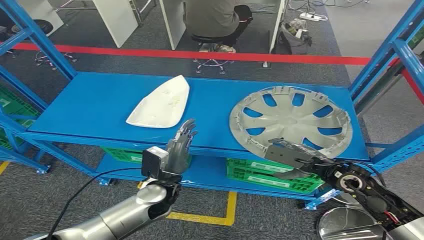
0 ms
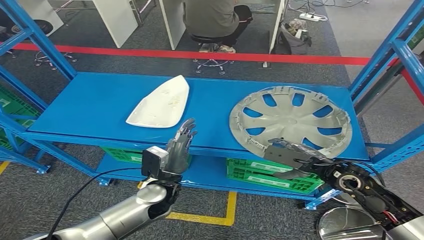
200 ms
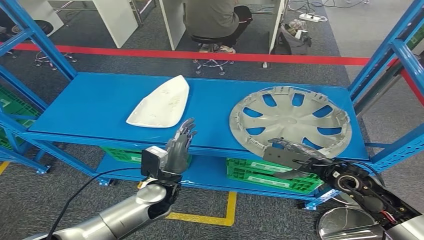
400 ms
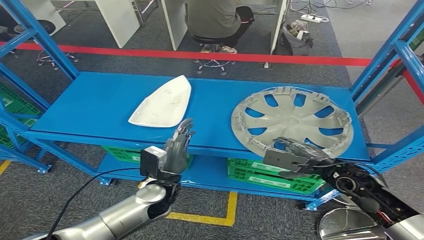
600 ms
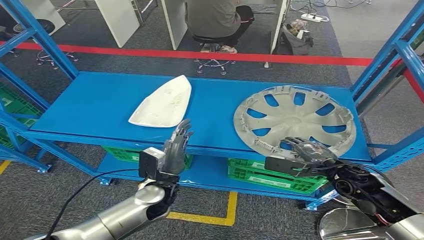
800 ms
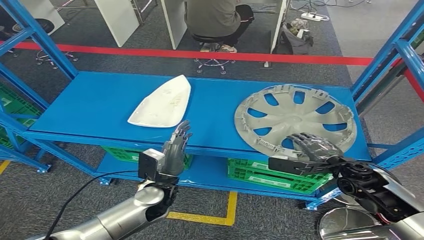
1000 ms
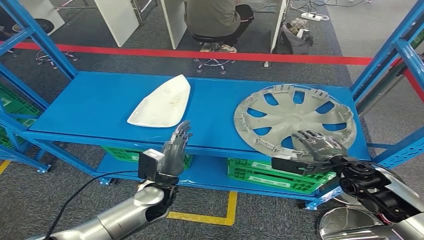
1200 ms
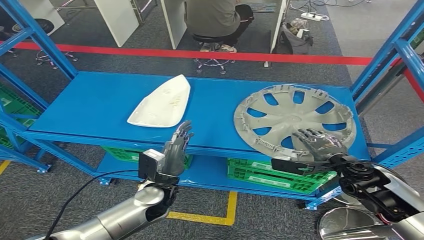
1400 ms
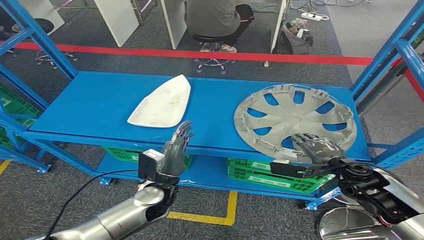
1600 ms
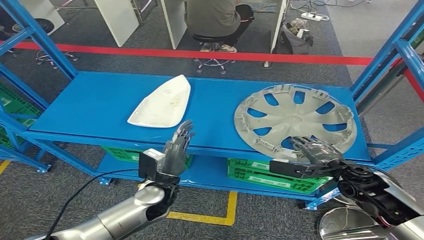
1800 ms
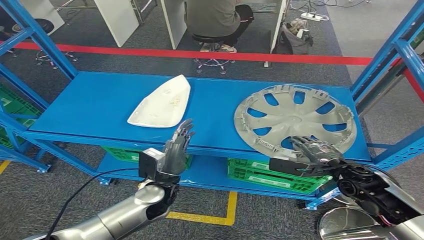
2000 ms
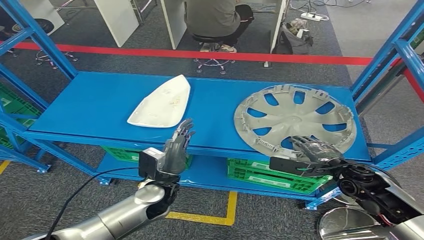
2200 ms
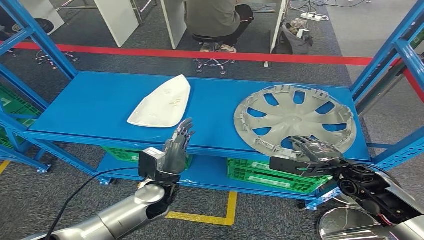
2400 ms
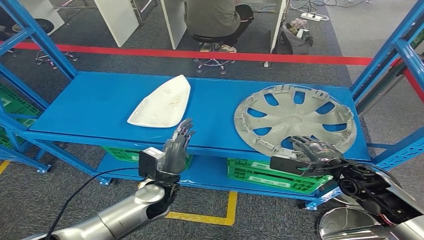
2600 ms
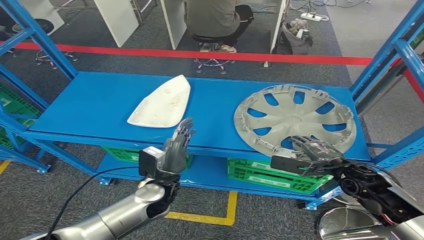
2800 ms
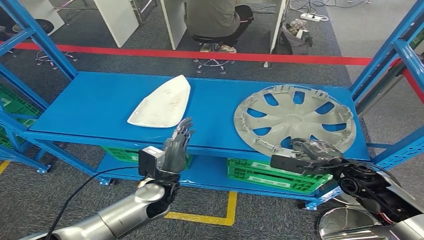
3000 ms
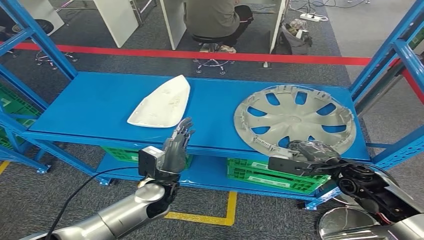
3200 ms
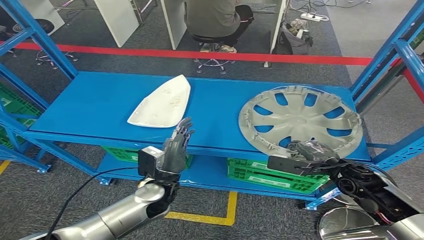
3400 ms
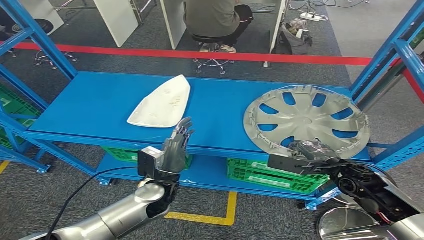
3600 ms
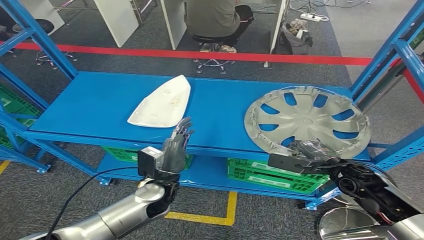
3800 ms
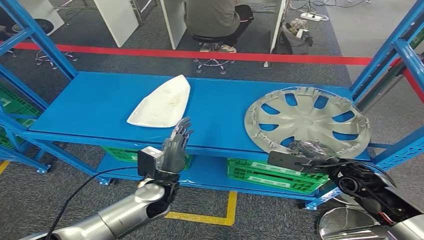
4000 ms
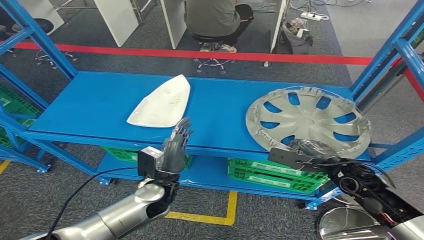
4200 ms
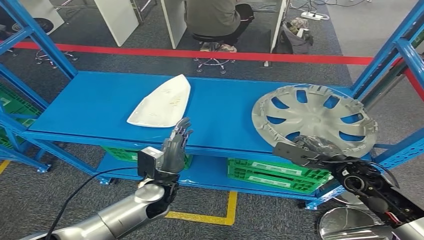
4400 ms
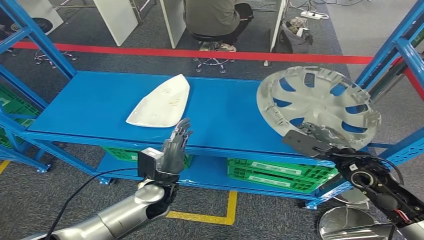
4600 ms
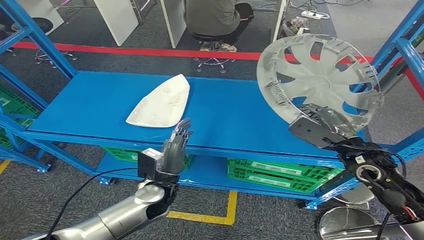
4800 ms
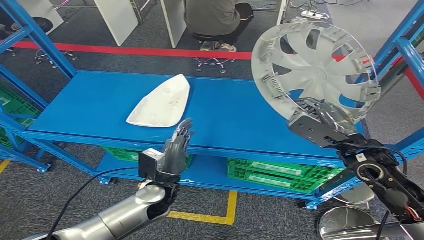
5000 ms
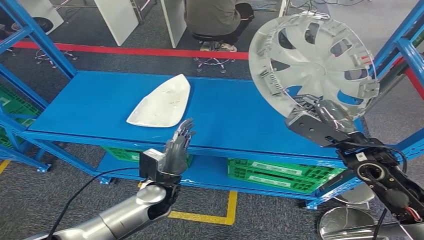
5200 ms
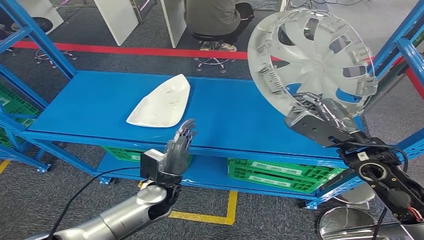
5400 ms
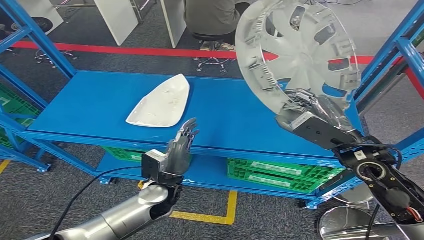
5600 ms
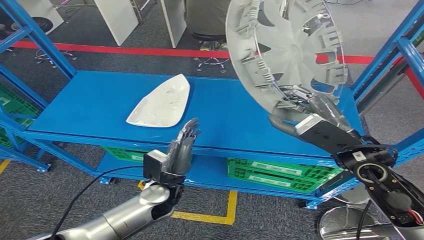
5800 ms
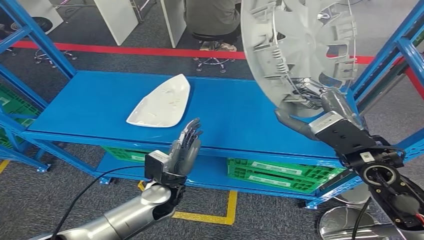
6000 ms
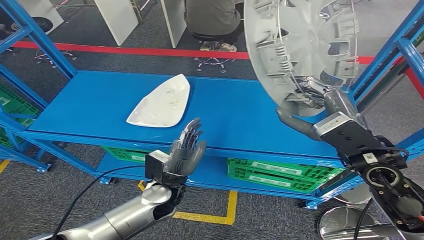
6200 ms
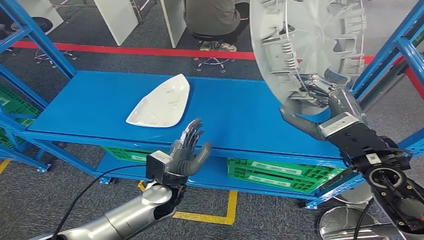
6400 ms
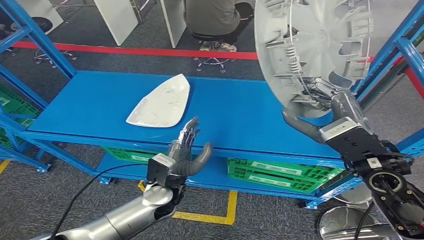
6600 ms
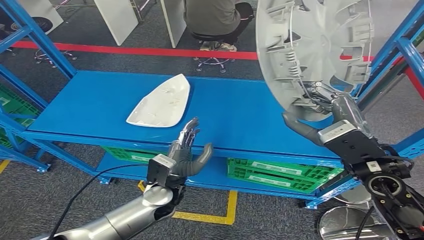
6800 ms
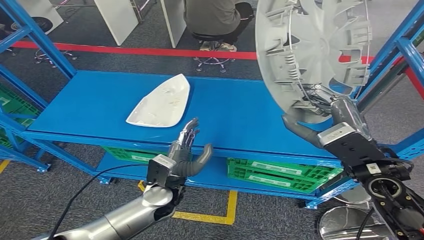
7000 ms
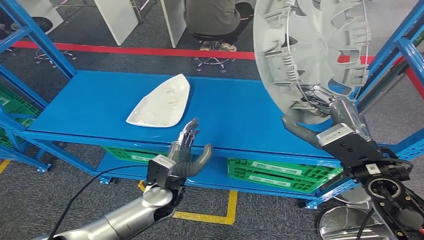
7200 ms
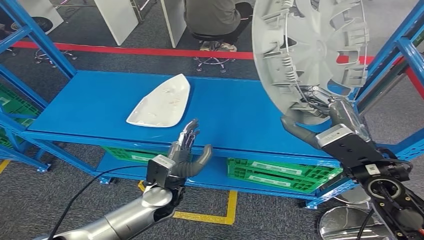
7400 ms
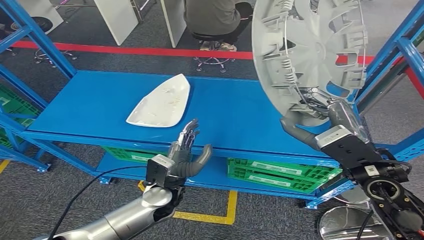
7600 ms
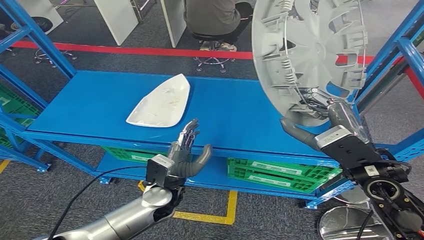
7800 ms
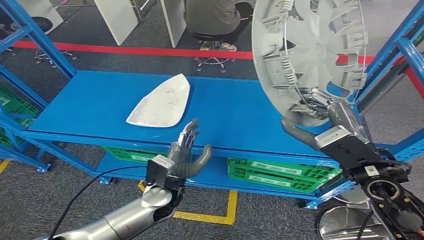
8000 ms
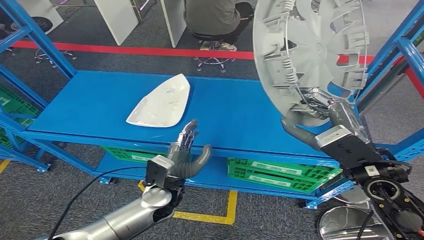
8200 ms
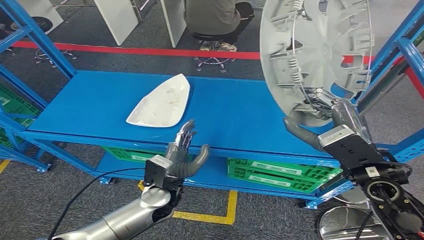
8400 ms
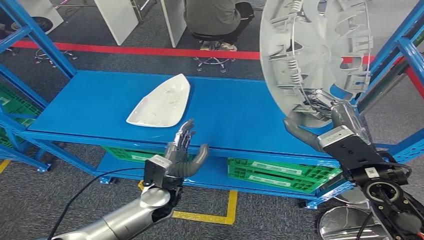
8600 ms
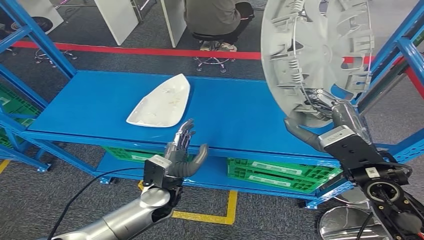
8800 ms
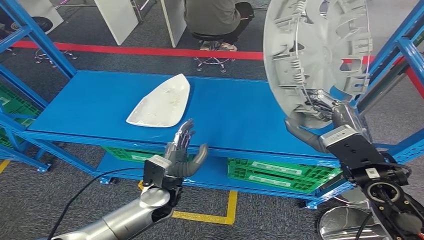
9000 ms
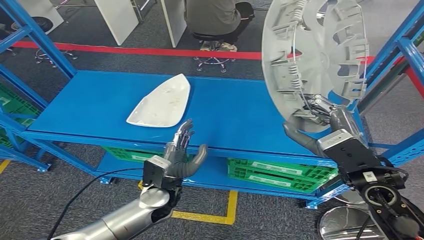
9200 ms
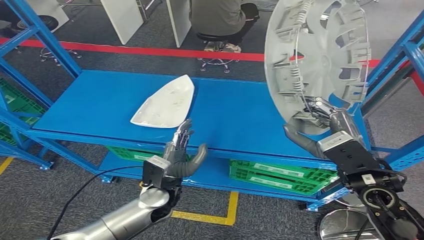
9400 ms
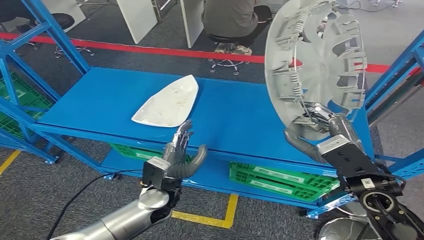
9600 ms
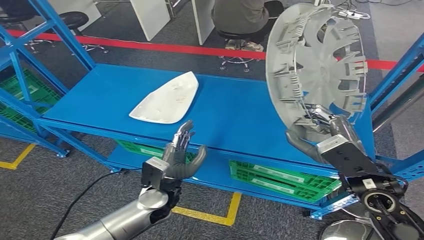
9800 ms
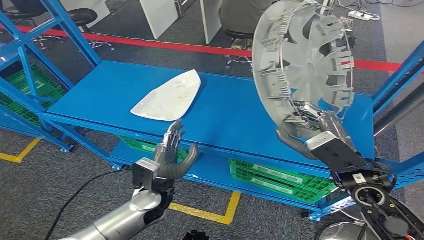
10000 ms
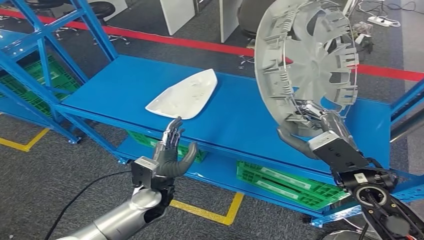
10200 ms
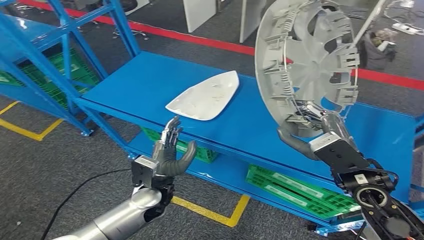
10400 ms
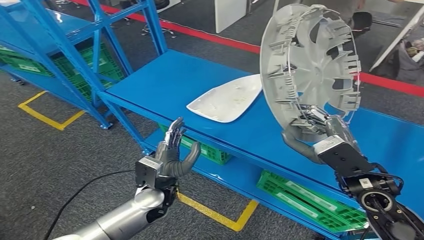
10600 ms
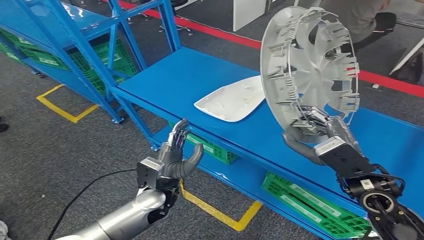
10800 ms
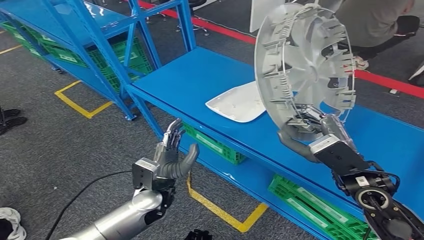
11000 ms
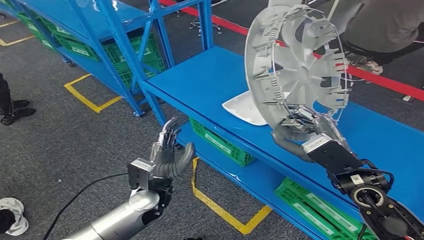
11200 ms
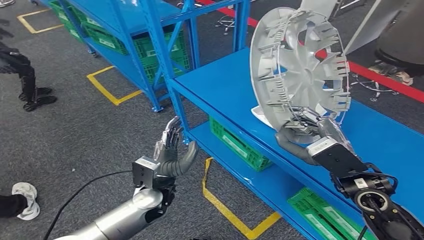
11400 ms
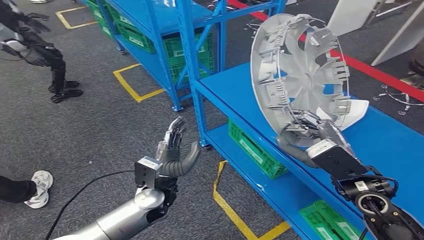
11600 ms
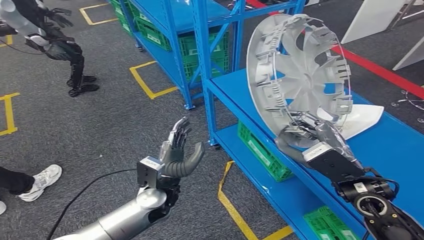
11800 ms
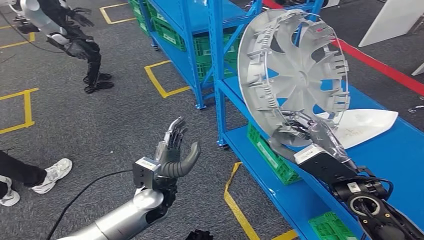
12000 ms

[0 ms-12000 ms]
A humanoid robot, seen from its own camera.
Step, 0 ms to 6600 ms: Pick up the small component from the shelf.
1600 ms to 3000 ms: The hands move only a little.
3000 ms to 4400 ms: The hands move only a little.
6000 ms to 7600 ms: There are only small adjustments of the hands.
7600 ms to 9000 ms: The two hands keep their place.

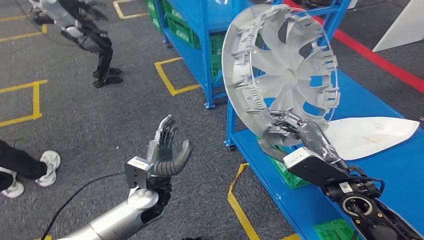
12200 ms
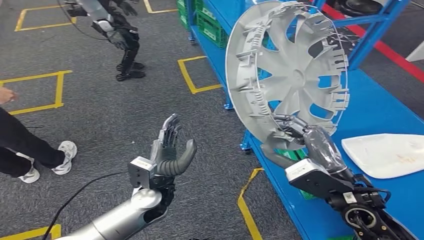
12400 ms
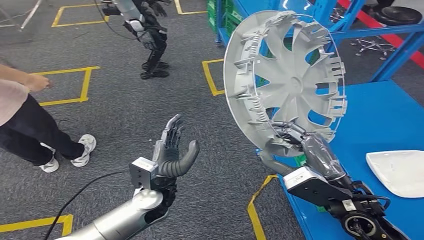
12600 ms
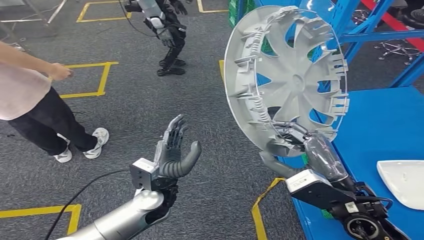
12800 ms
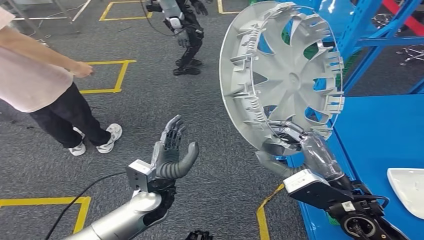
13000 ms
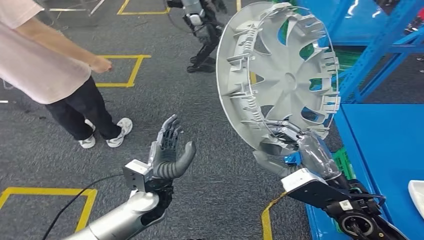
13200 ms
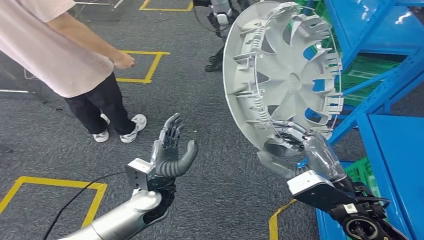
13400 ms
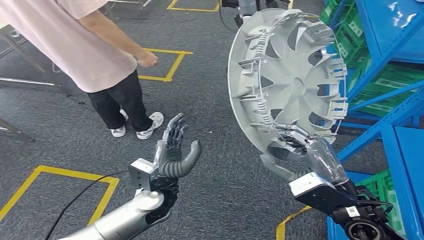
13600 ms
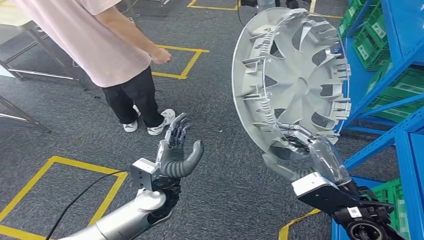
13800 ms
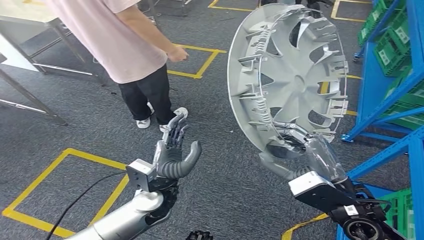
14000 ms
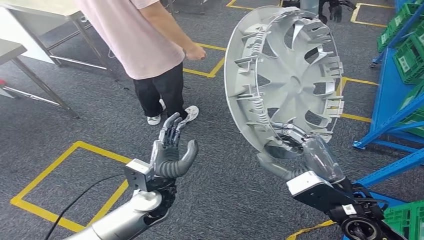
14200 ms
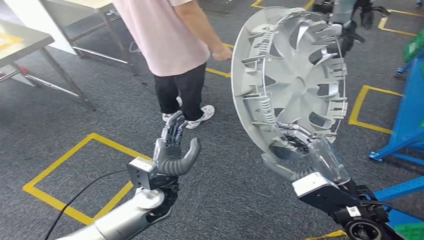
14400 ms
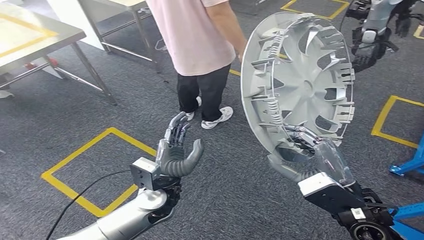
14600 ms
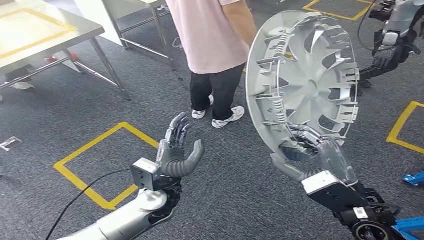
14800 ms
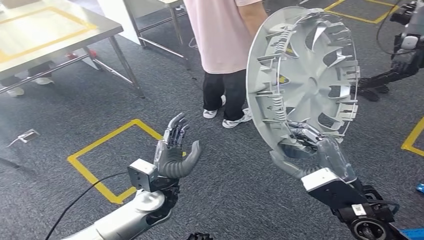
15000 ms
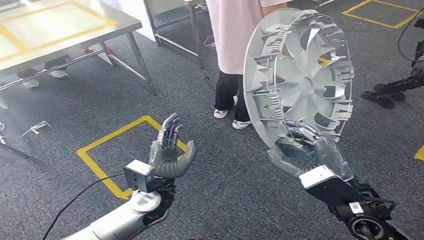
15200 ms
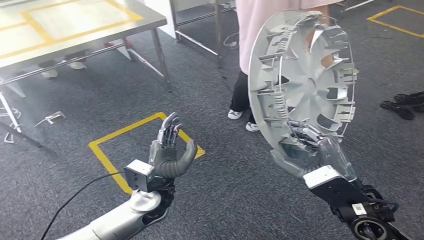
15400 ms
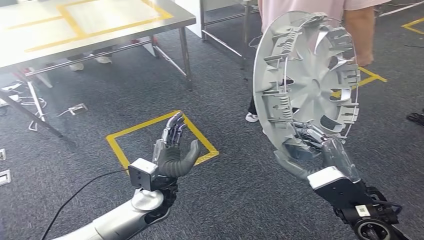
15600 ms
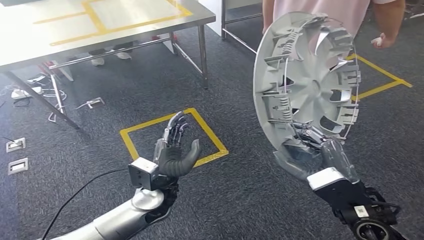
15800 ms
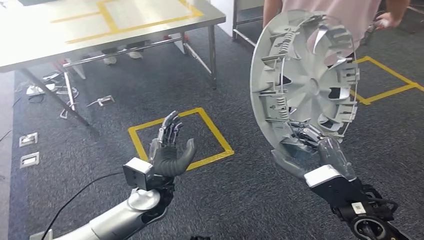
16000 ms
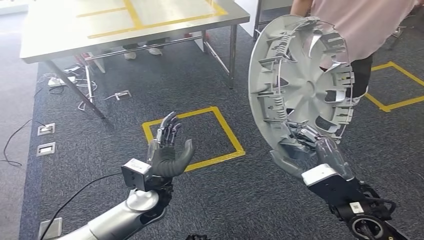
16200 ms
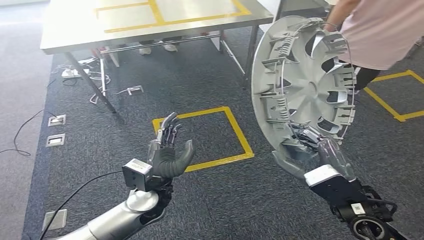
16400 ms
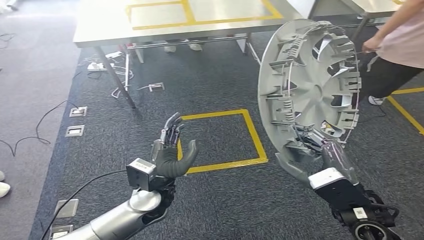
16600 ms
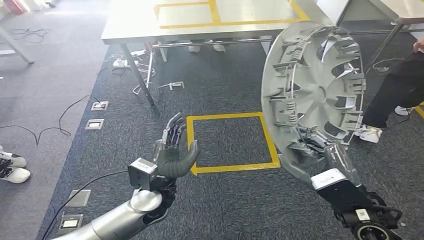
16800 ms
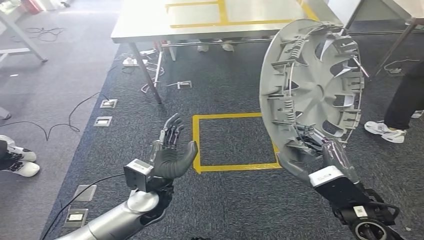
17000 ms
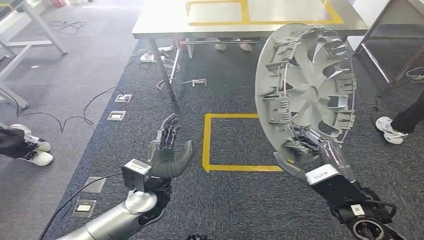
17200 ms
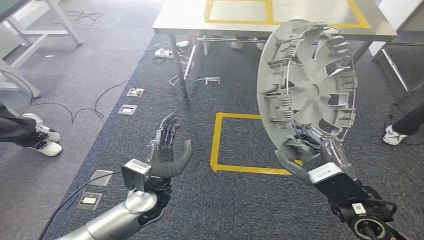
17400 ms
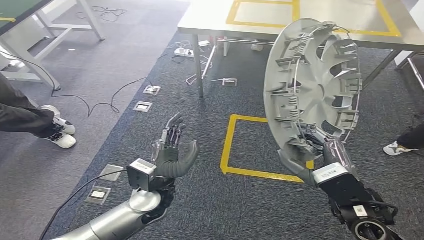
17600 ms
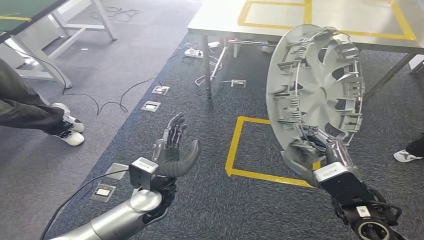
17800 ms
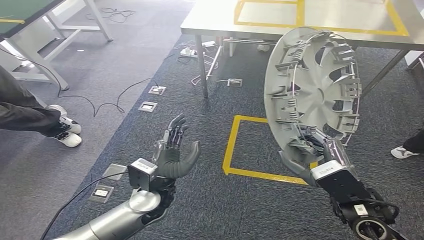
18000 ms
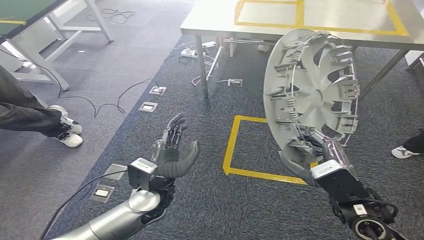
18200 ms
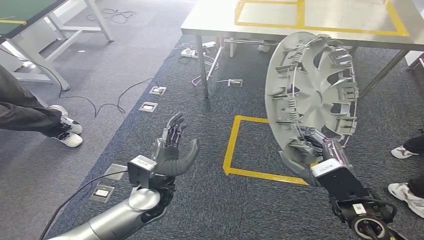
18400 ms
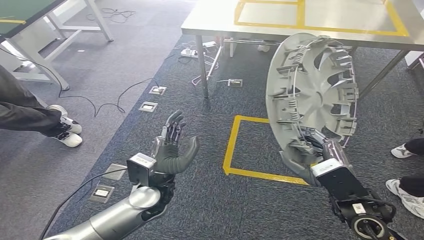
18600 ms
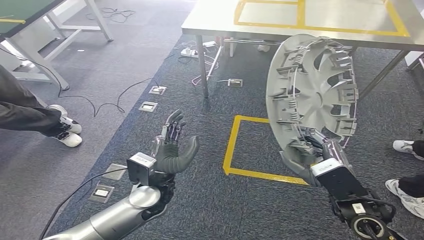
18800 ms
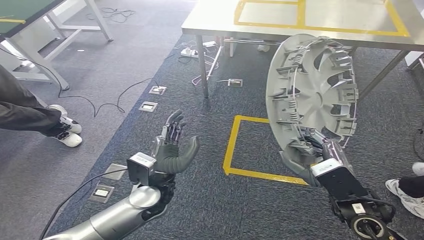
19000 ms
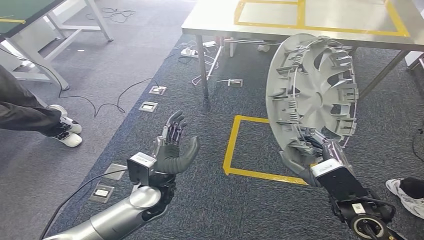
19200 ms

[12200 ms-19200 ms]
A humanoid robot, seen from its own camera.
17800 ms to 19200 ms: There are only small adjustments of the hands.
